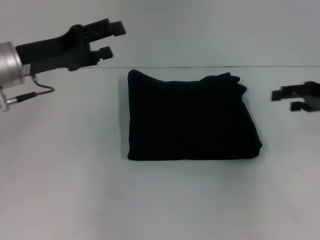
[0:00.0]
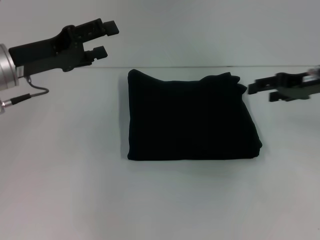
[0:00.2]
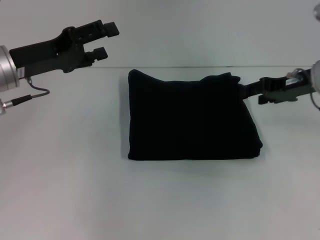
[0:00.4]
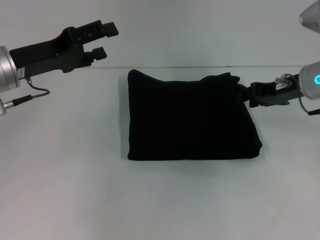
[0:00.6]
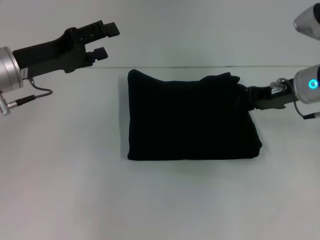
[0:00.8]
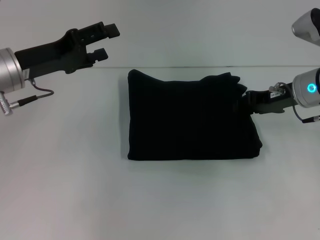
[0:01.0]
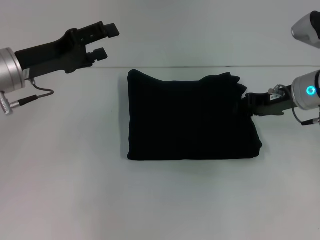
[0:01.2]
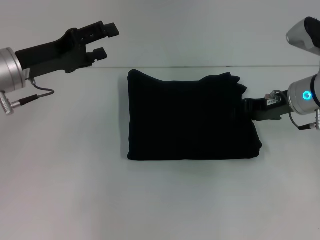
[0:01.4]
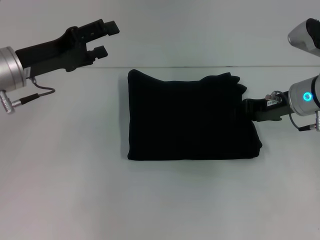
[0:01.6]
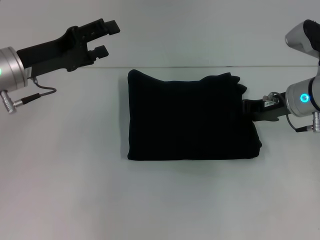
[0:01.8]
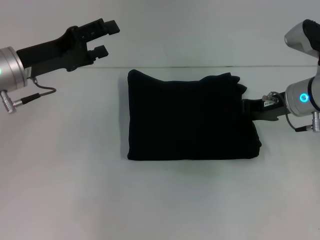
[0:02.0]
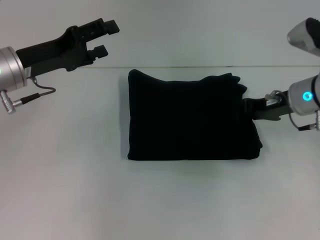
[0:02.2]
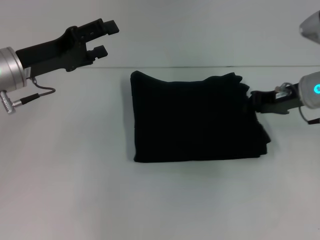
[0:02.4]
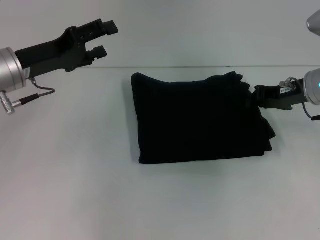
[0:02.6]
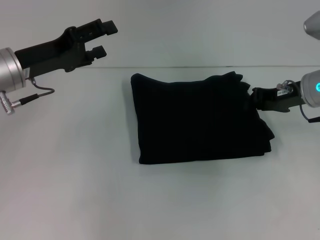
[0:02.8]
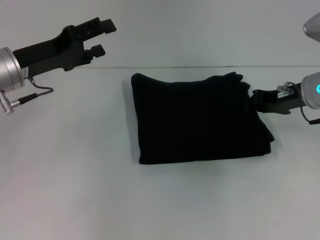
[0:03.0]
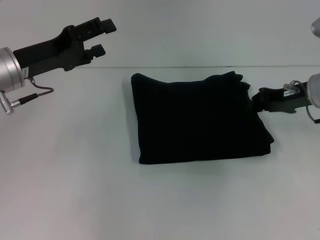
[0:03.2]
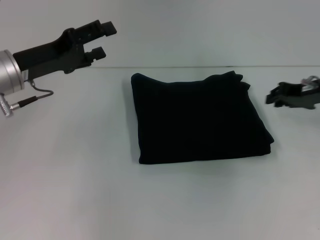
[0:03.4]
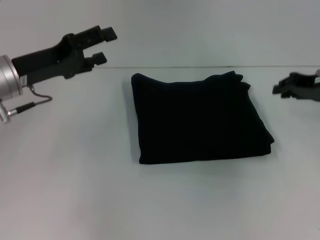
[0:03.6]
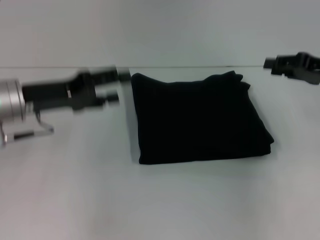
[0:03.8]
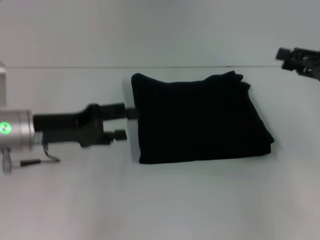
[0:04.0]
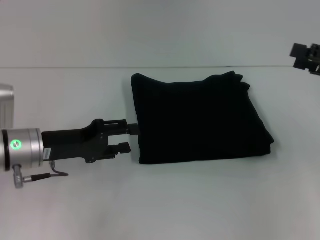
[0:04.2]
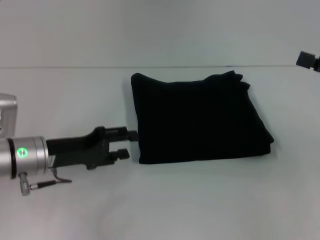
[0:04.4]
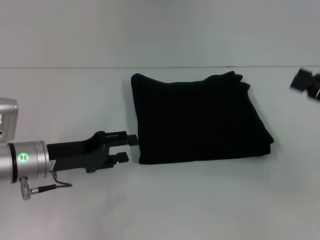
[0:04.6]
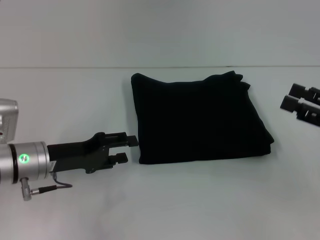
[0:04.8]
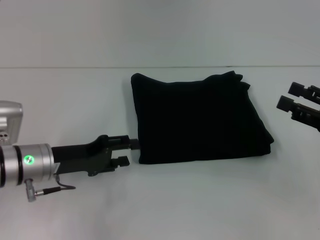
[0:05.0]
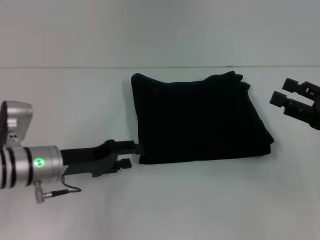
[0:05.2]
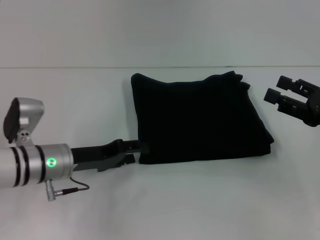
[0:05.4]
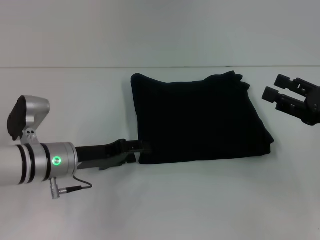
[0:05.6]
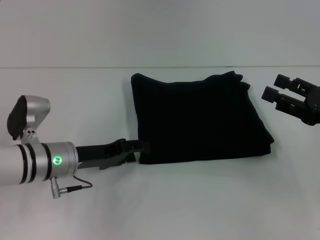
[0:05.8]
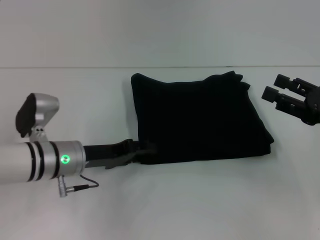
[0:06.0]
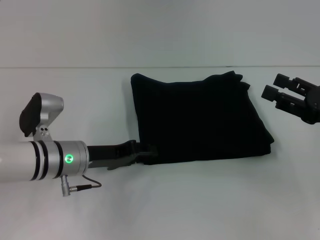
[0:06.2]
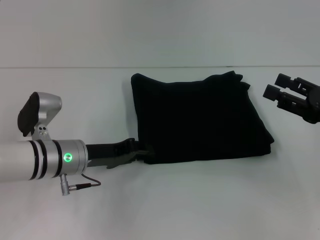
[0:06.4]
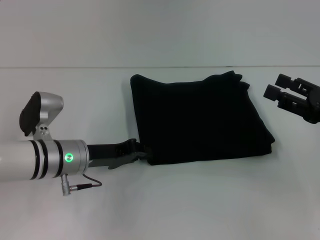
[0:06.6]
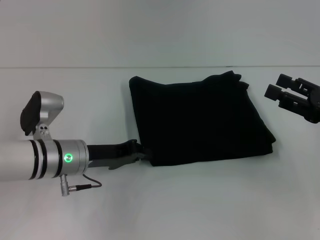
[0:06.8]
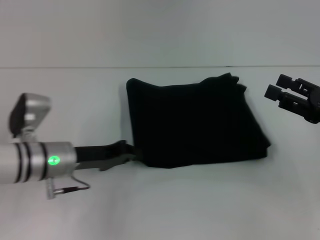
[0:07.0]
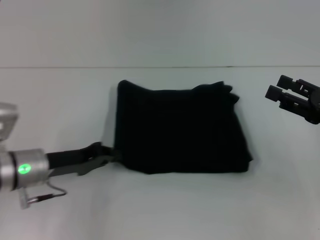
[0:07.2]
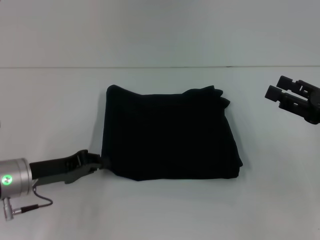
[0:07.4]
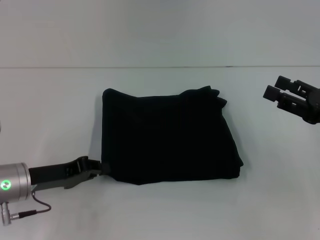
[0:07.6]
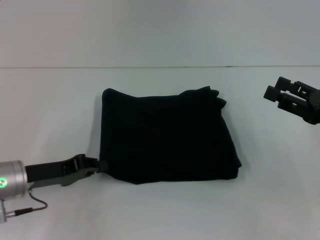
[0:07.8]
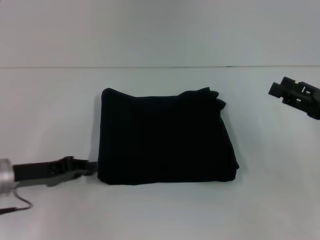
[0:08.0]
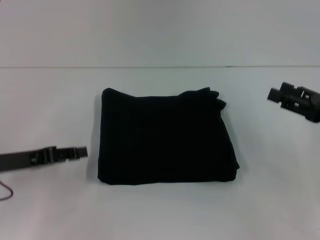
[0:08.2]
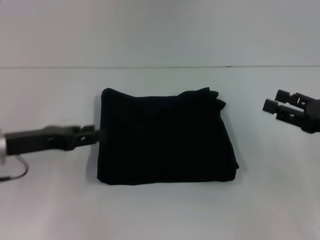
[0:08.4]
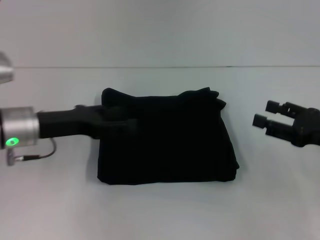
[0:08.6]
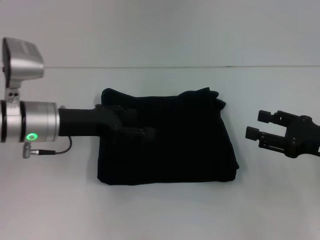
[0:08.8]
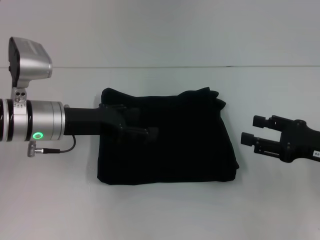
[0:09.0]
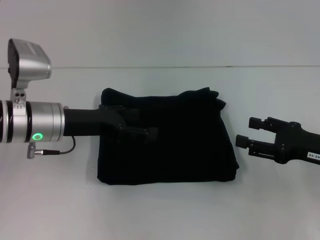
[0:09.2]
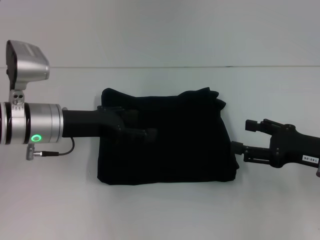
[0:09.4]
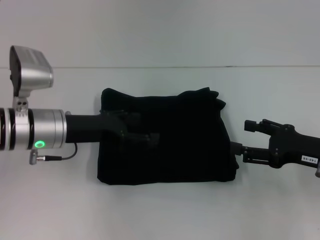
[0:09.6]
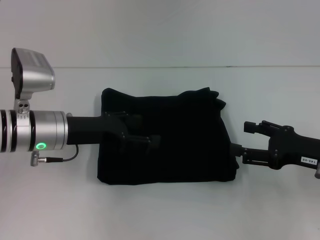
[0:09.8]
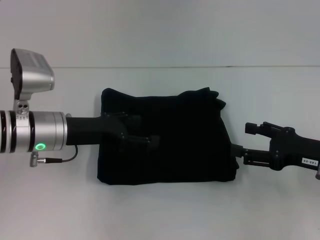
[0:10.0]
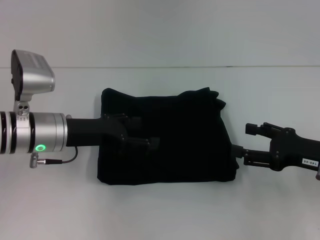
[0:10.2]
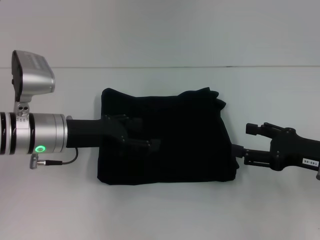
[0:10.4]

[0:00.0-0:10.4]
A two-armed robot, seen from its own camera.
0:00.0 to 0:01.4: The right gripper shifts approximately 10 cm to the left, and closes.
0:01.4 to 0:03.0: The right gripper closes its fingers.
0:03.0 to 0:04.4: The left gripper is displaced downward and backward by about 10 cm. The right gripper goes roughly 15 cm backward and to the right, and opens up.
0:04.4 to 0:06.0: The left gripper changes place by about 5 cm, while the right gripper ends up roughly 5 cm from where it was.
0:06.0 to 0:07.4: The left gripper is displaced to the left by approximately 5 cm, and closes.
0:07.4 to 0:09.0: The left gripper goes about 10 cm upward and forward, and opens its fingers.
0:09.0 to 0:10.4: The grippers stay close to where they were, moving slightly.
